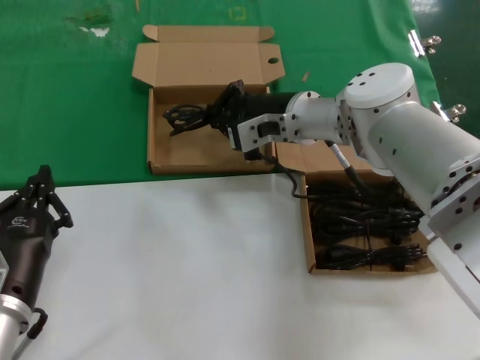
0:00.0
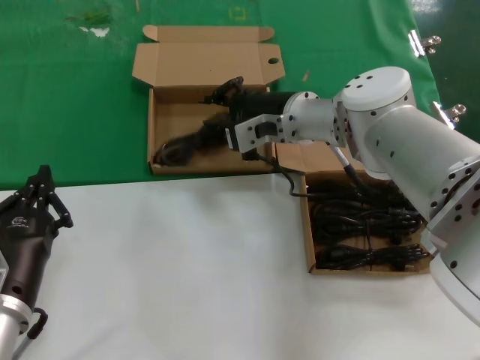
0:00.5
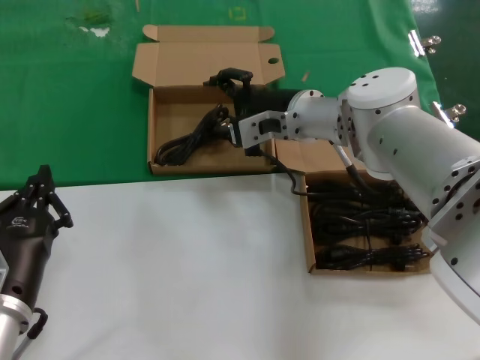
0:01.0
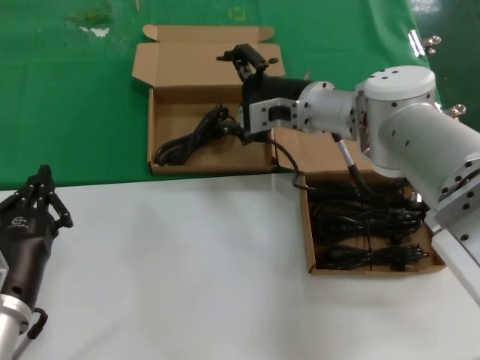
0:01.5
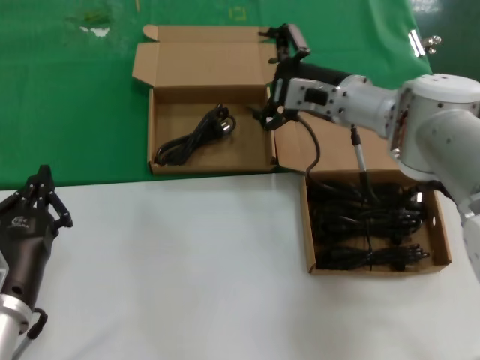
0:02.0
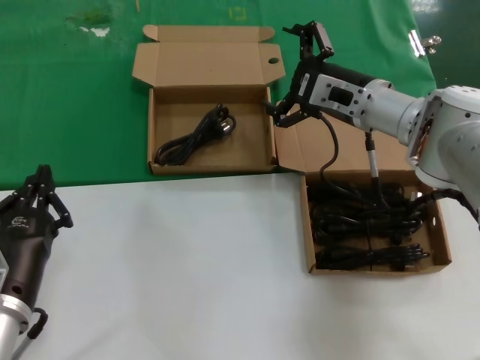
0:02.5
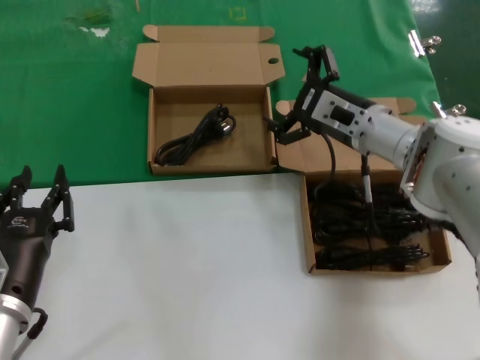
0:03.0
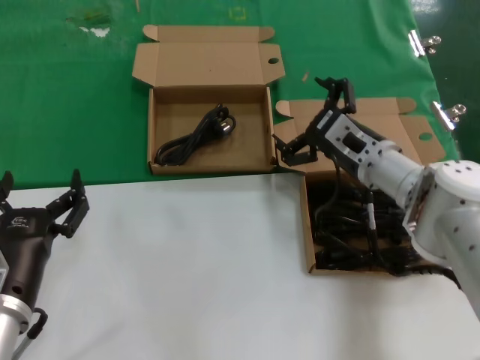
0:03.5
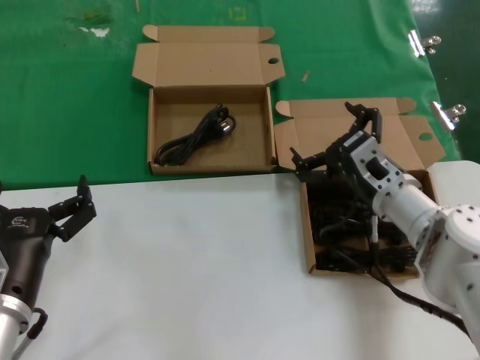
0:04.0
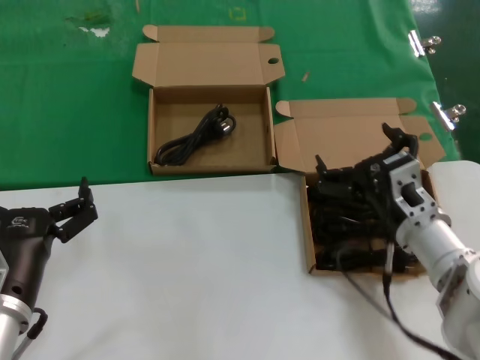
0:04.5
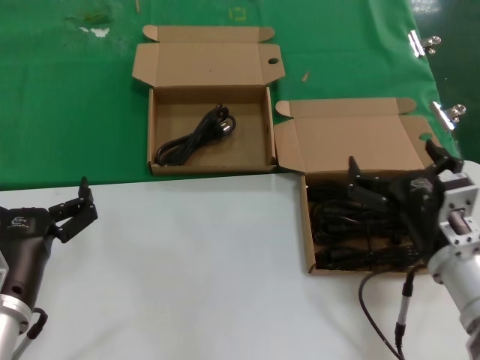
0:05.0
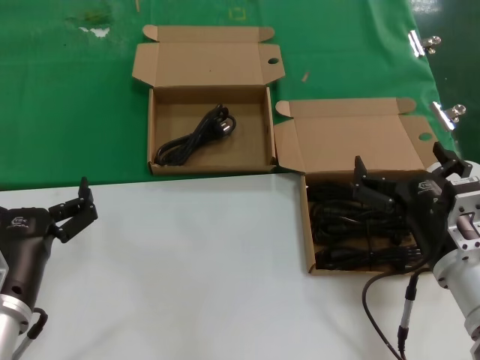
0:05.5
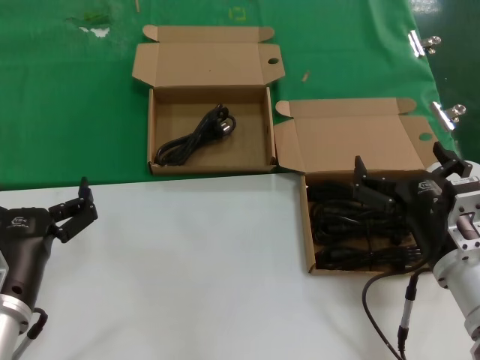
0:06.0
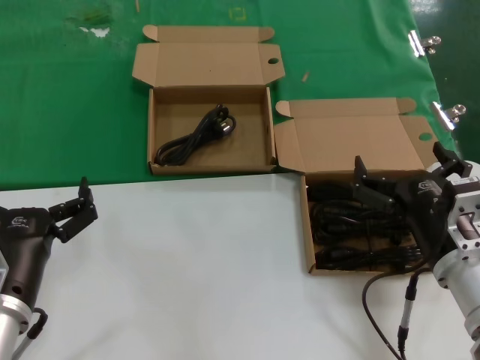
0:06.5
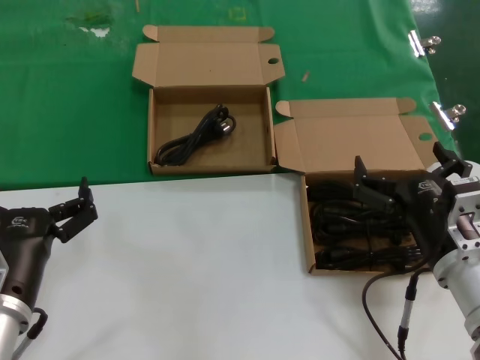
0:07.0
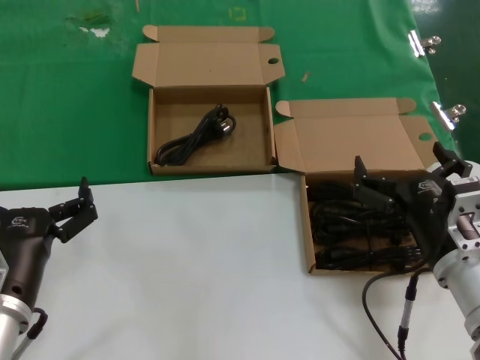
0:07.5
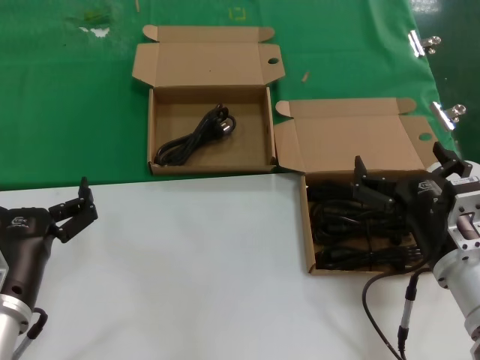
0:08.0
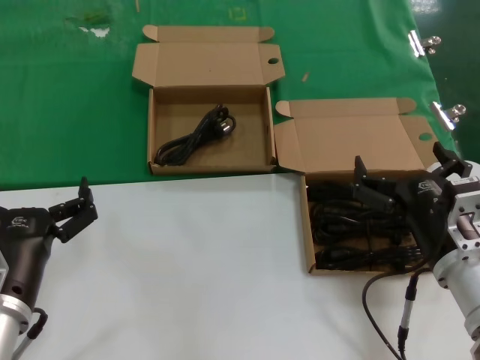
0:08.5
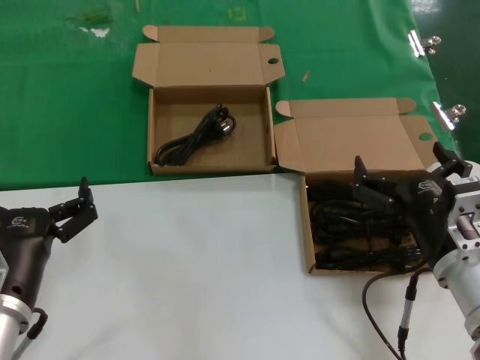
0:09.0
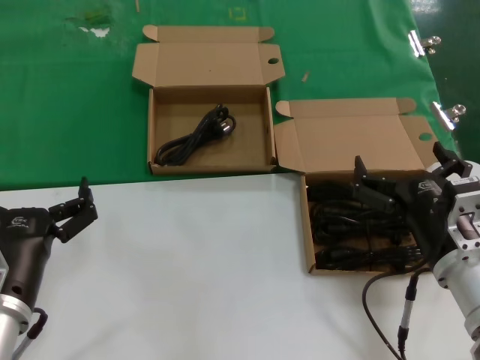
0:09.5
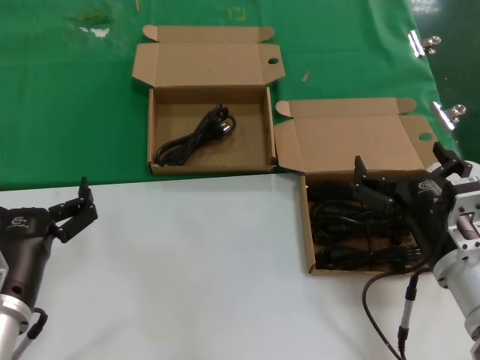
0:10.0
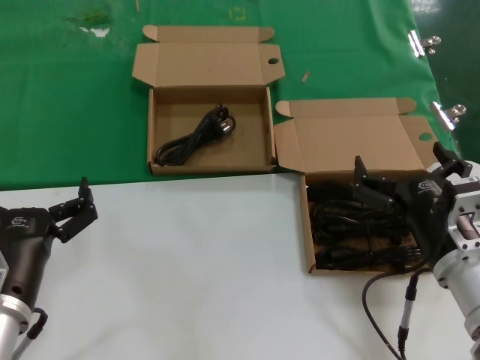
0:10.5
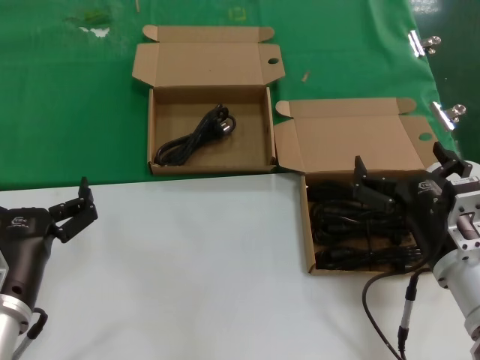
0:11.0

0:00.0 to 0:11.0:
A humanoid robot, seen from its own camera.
Task of the whole recording: take the parts from the box containing them and put them into an empty box.
0:00.0 to 0:02.0: The right hand moves to the right, roughly 5 cm.
0:02.0 to 0:03.5: The right hand is displaced downward and backward by roughly 10 cm.
0:03.5 to 0:05.5: The right hand goes roughly 20 cm backward.
0:05.5 to 0:11.0: Both hands stay about where they are.
